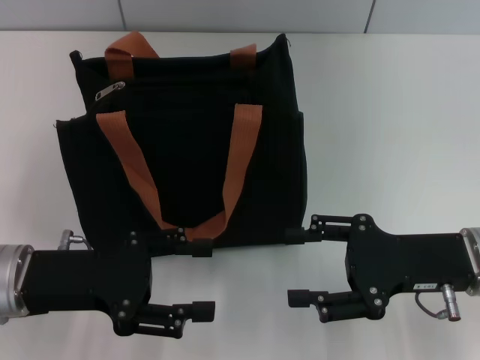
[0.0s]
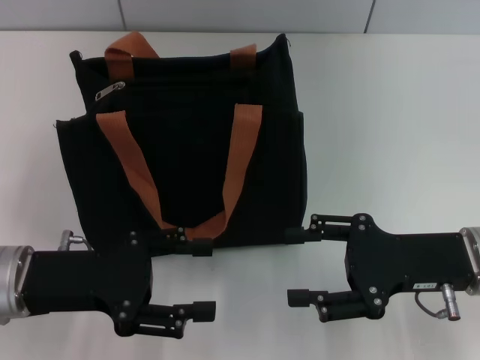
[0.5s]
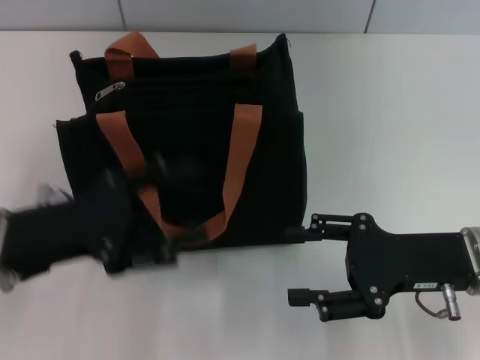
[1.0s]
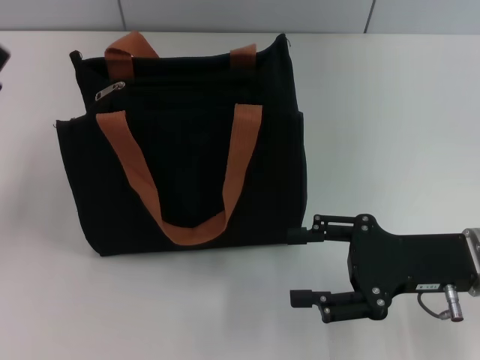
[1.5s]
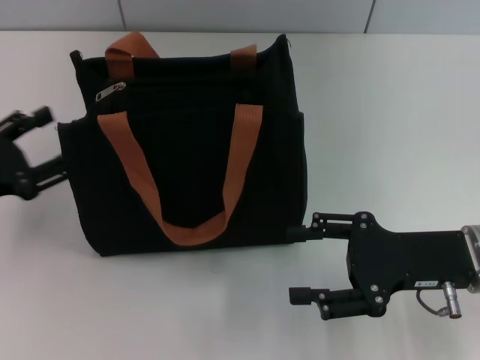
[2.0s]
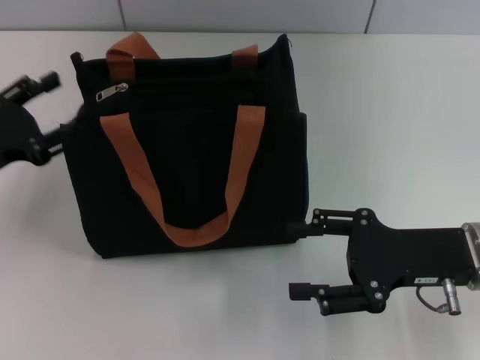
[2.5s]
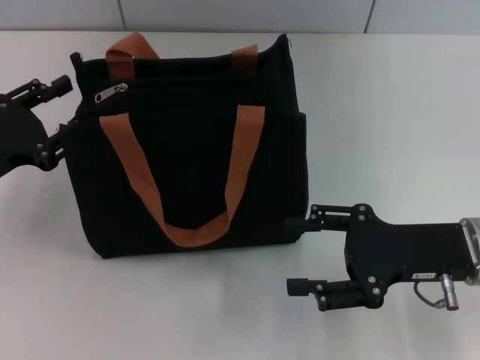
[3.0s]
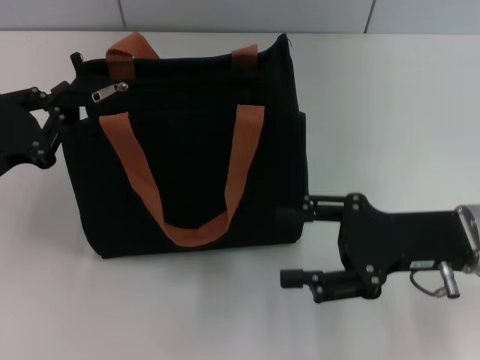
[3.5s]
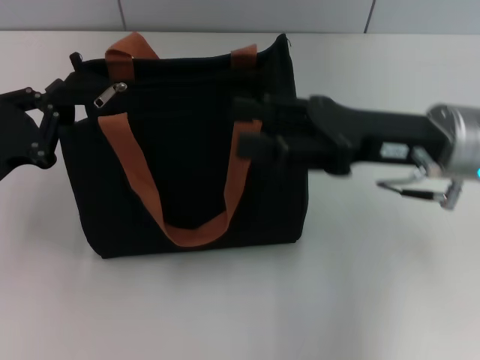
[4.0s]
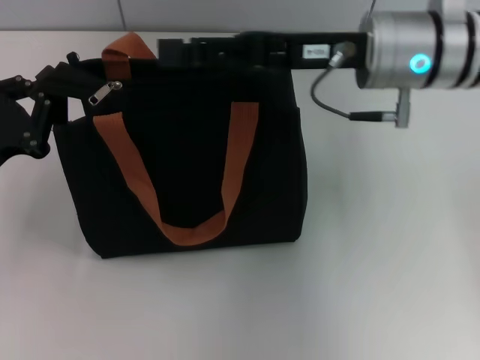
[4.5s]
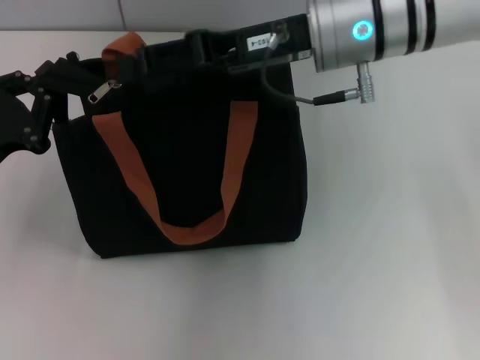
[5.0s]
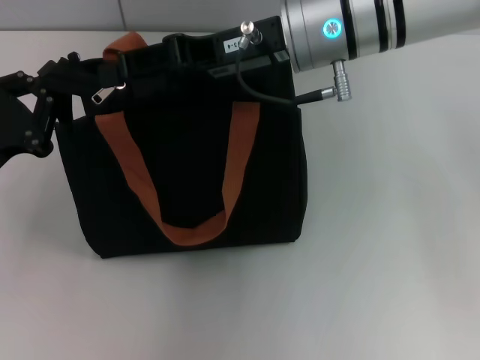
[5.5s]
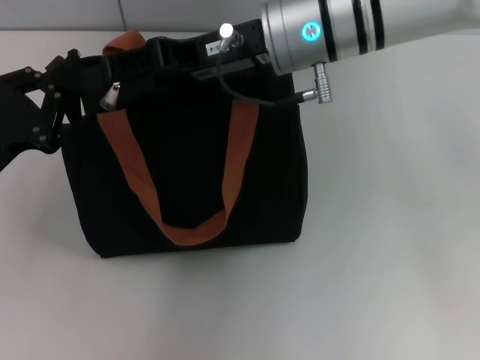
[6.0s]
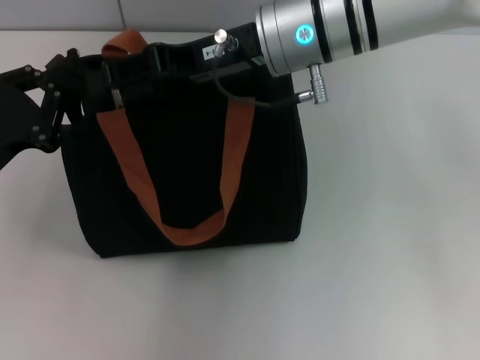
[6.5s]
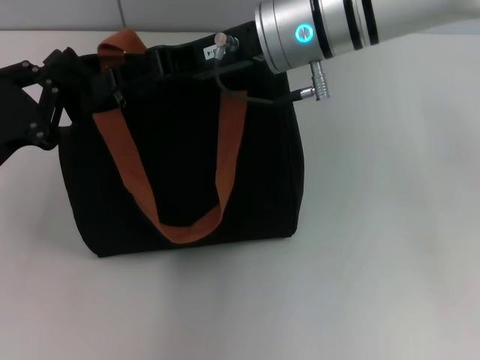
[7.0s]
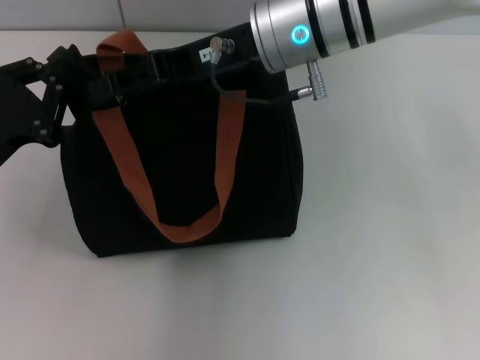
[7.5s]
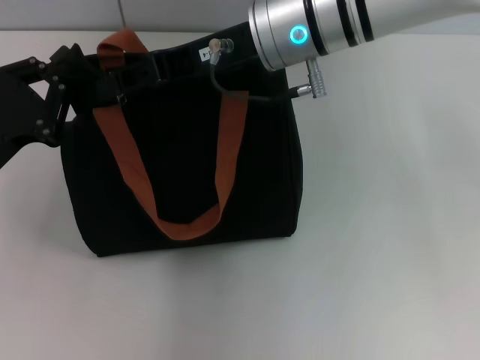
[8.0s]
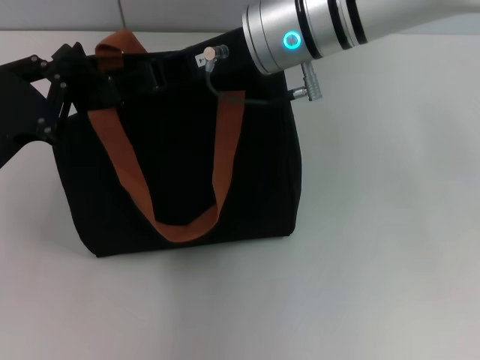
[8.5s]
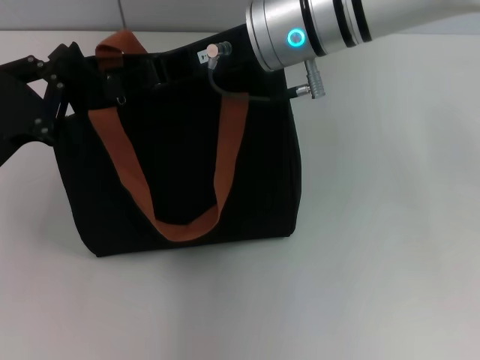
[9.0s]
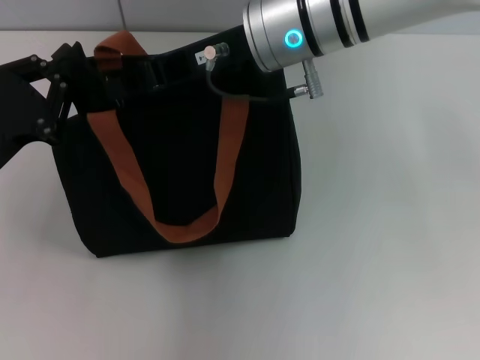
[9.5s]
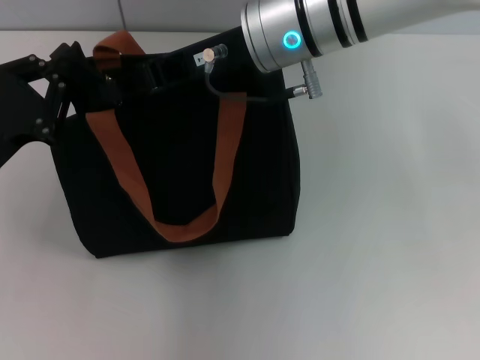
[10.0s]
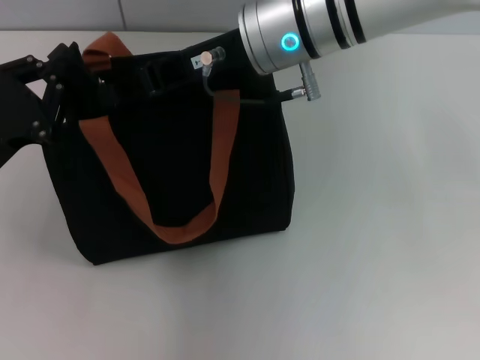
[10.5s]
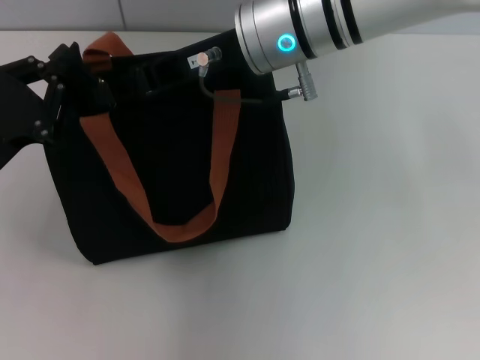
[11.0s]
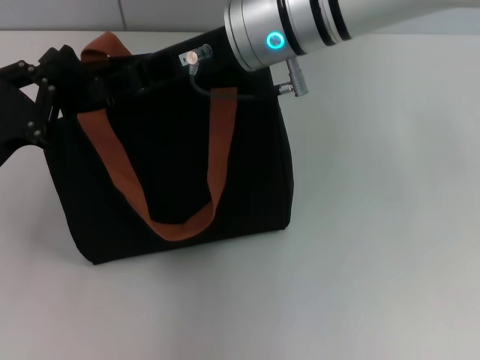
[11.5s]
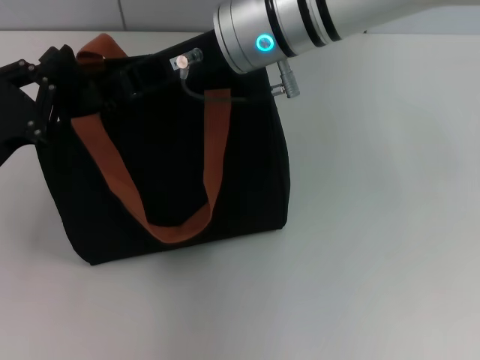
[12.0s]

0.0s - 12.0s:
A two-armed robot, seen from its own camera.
0.0s - 2.0s: The left gripper travels to the left by roughly 10 cm.
2.0s - 4.0s: The left gripper closes up, while the right gripper shifts some 10 cm upward and forward.
4.0s - 6.0s: The right gripper shifts some 15 cm to the left, forward and upward.
6.0s - 10.0s: The grippers move only a little.
10.0s - 12.0s: The grippers move only a little.

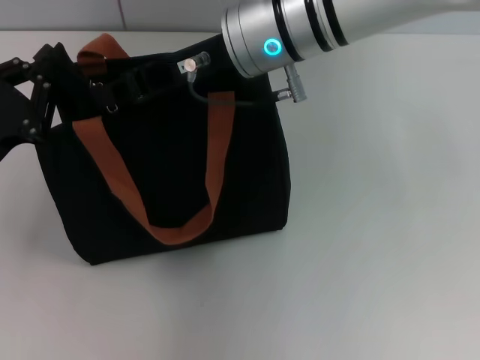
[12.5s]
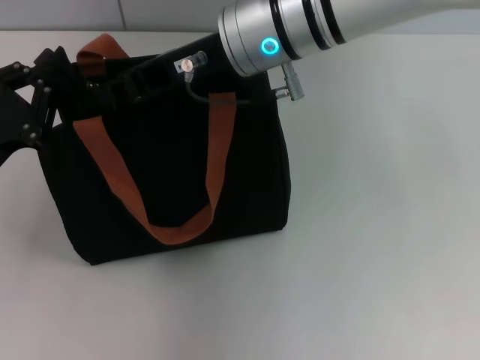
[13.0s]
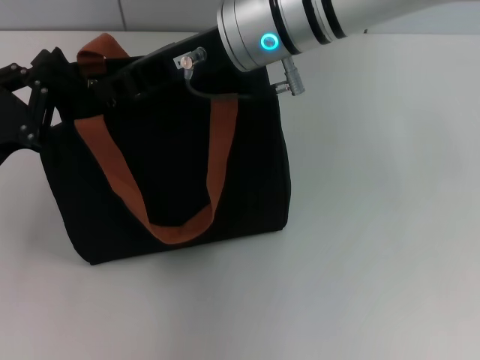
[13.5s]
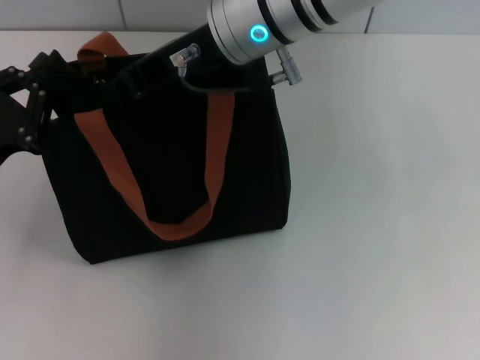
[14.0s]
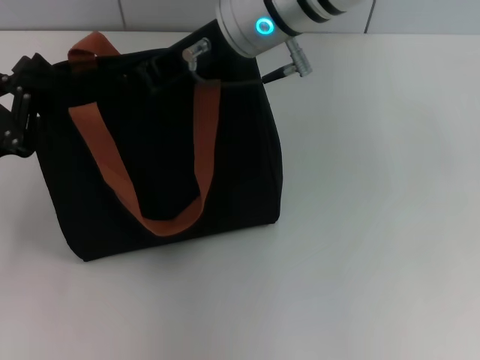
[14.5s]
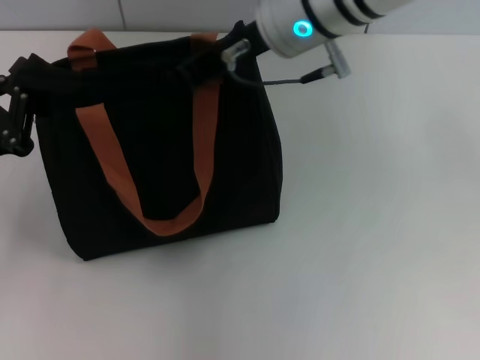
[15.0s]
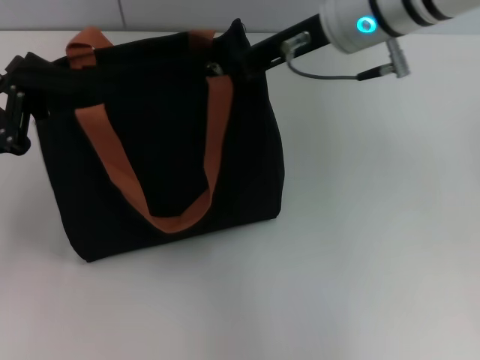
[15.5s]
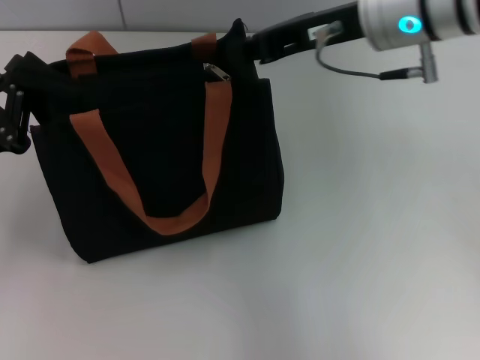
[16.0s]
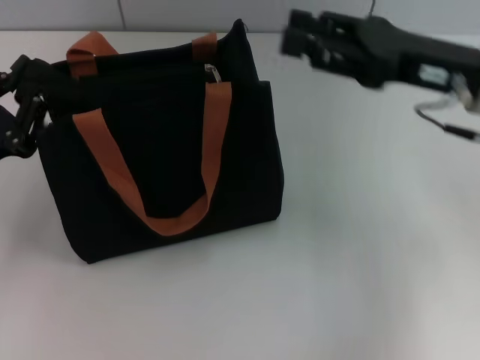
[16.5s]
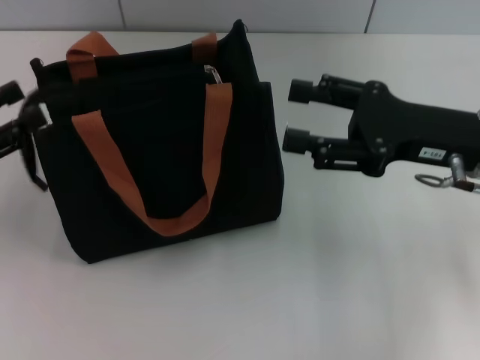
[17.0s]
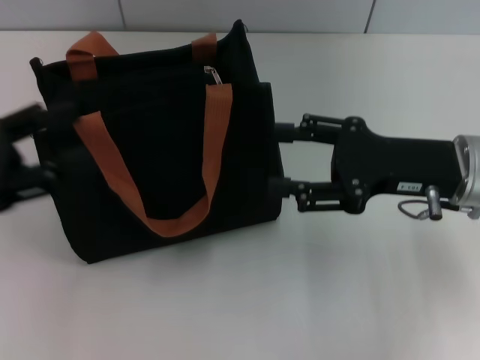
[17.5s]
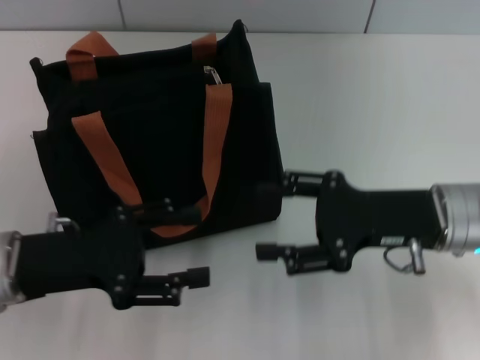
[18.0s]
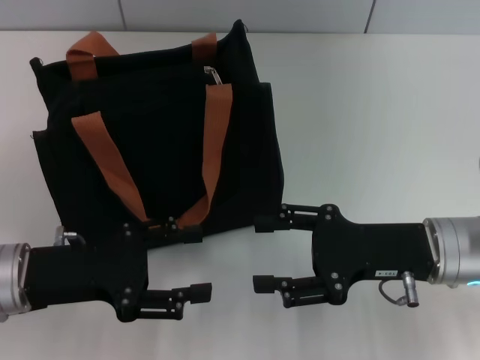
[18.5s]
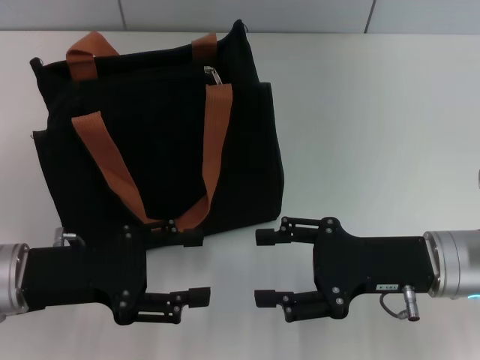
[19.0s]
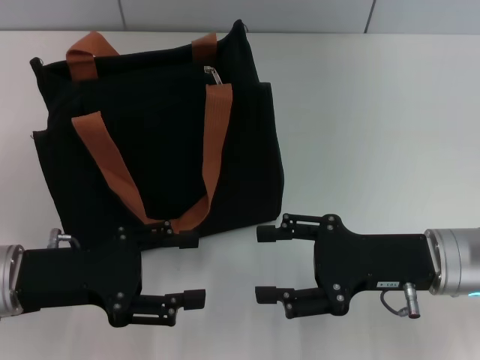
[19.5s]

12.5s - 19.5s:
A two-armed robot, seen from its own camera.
Step, 12.5s - 15.0s: Pull up the zipper with your right hand.
12.5s - 14.5s: The grippers move only a little.
14.5s - 16.0s: The right gripper goes about 10 cm to the right.
16.0s - 17.5s: The right gripper shifts about 15 cm downward, to the right and backward, and opens its fingers, while the left gripper travels upward by approximately 5 cm, and opens.
17.5s - 19.5s: The right gripper shifts some 5 cm downward, while the left gripper goes roughly 10 cm to the right and downward.

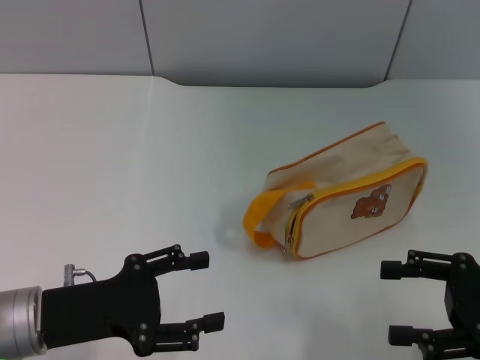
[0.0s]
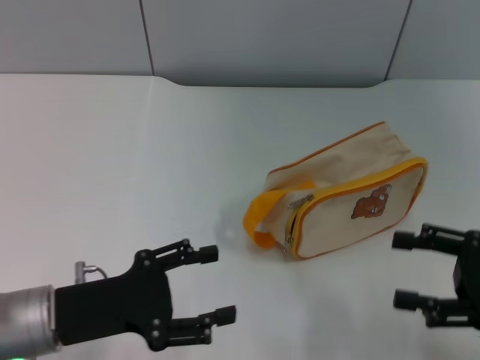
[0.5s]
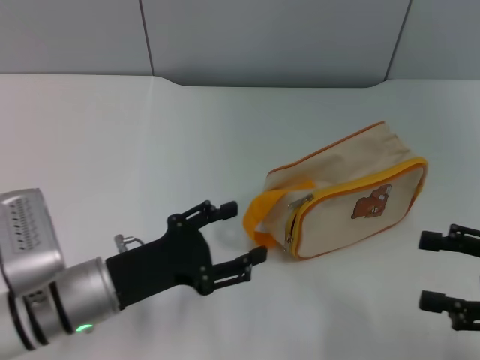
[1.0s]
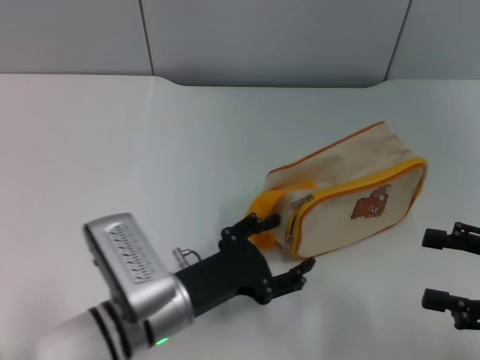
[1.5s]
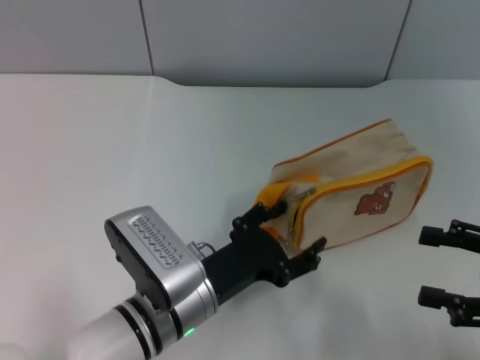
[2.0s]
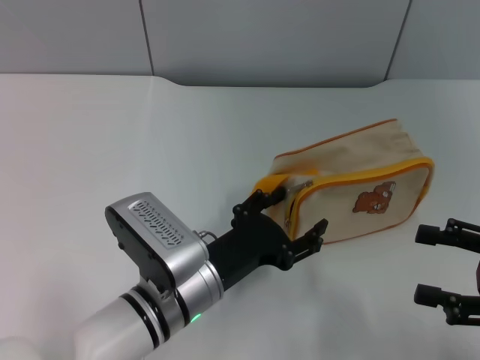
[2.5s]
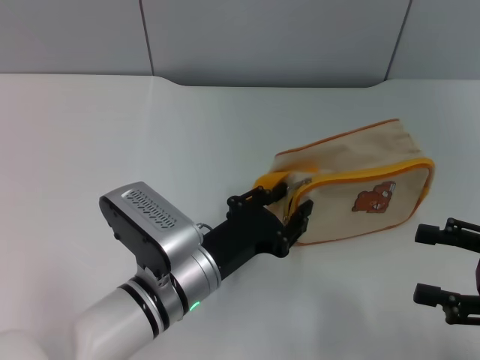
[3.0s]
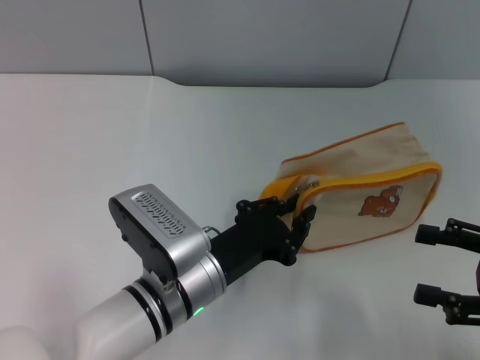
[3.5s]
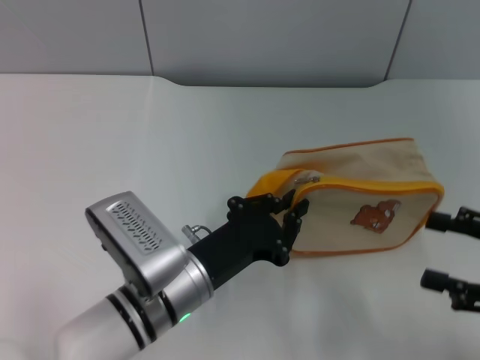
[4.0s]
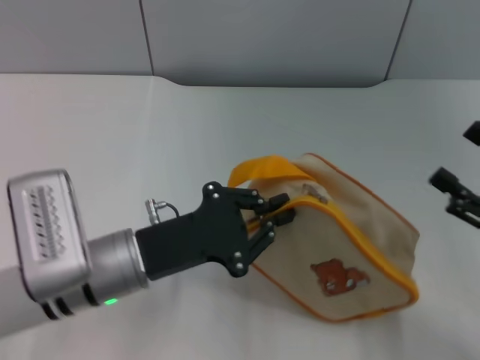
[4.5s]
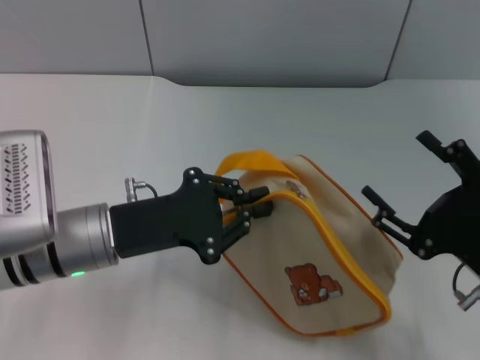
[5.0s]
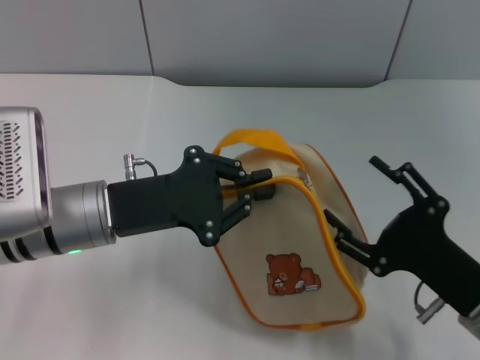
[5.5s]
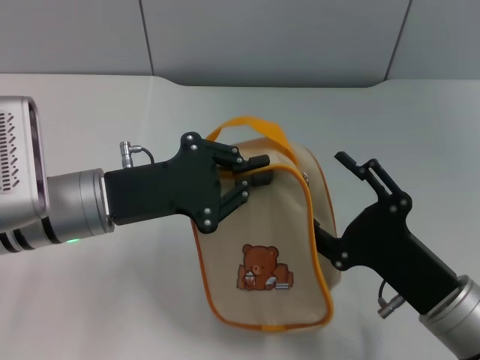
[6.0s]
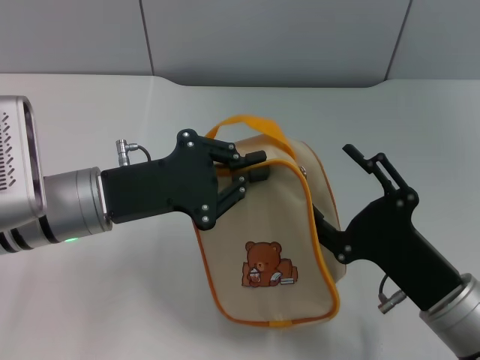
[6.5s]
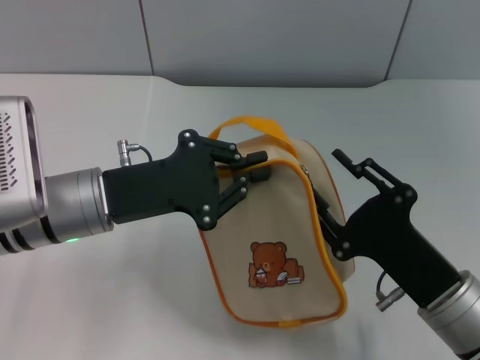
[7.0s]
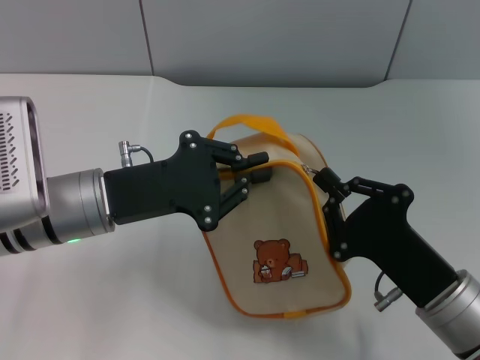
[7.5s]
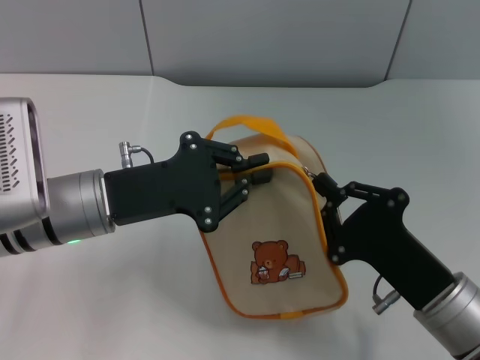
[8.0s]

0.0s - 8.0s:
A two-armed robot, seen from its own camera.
Step, 0.0s - 4.5s: Pick up the bag with left gripper.
0.0s - 2.0s: The left gripper travels to the right by roughly 15 cm.
2.0s - 4.0s: The left gripper closes up.
4.0s - 6.0s: The right gripper heads to the left and downward, covering roughly 15 cm; the left gripper shifts some 15 cm to the left, upward and forward.
6.0s - 8.0s: The right gripper closes up.
